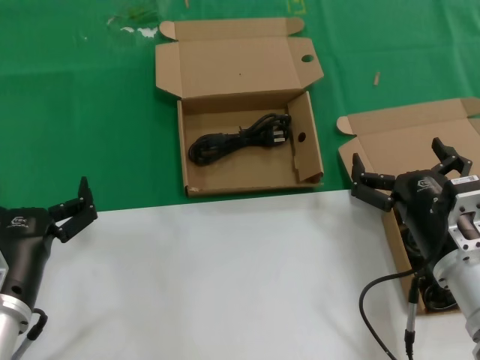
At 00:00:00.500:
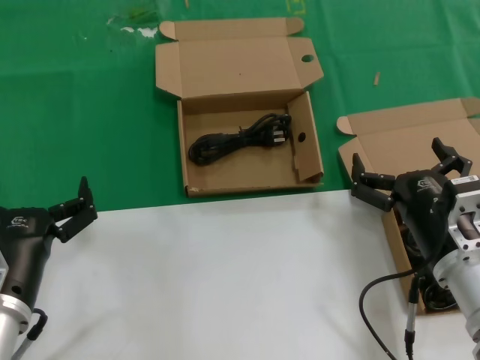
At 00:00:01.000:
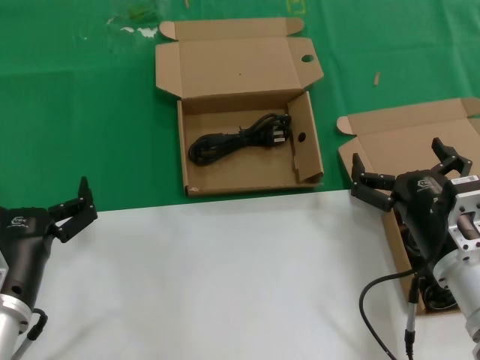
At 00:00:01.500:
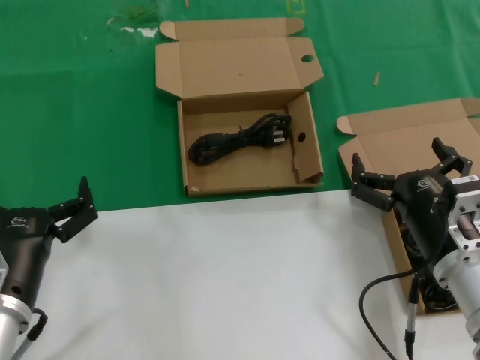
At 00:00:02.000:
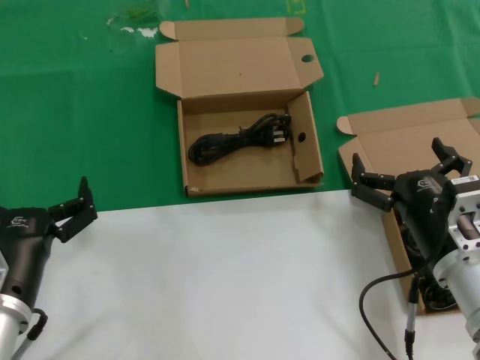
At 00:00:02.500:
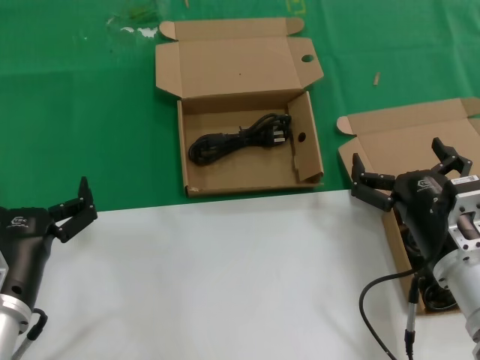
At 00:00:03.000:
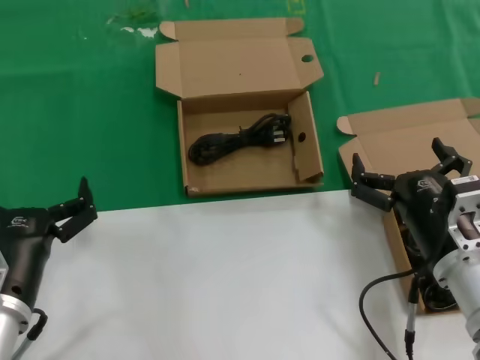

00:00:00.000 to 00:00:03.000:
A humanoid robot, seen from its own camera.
Task of the whole recording: take the parts from the box containing them and put them into an empty box.
00:00:00.000 to 00:00:03.000: The two hands keep their place.

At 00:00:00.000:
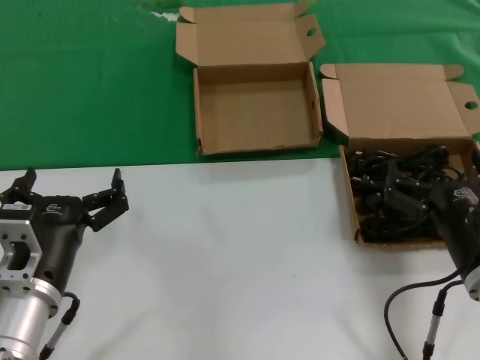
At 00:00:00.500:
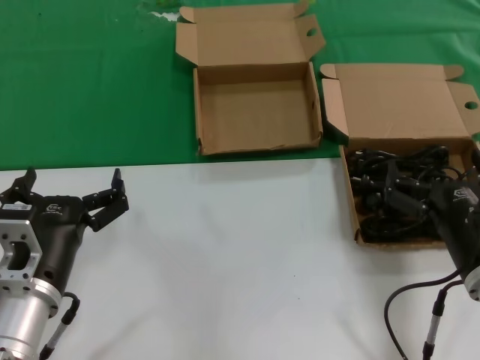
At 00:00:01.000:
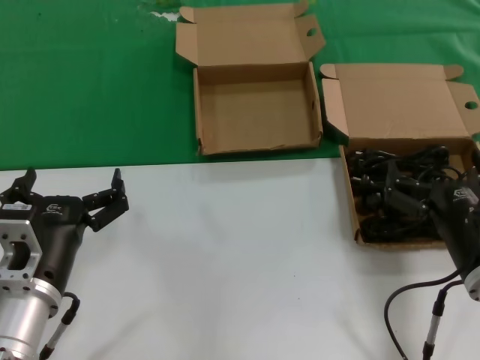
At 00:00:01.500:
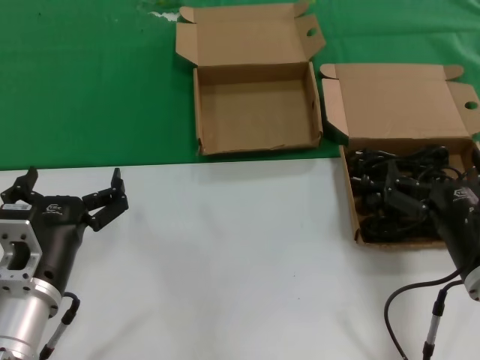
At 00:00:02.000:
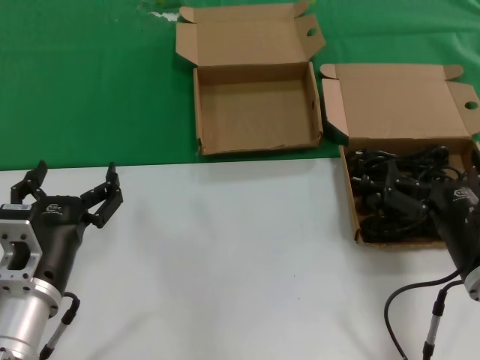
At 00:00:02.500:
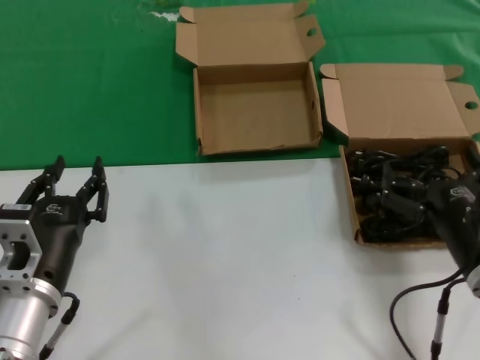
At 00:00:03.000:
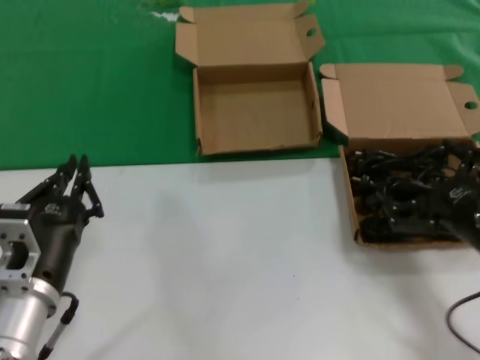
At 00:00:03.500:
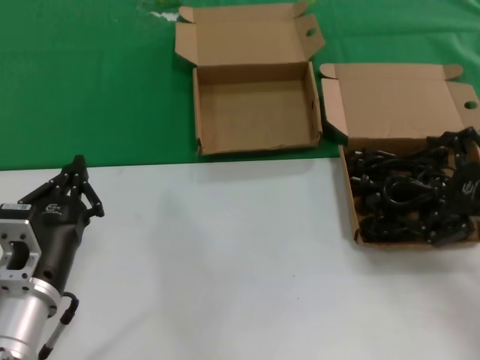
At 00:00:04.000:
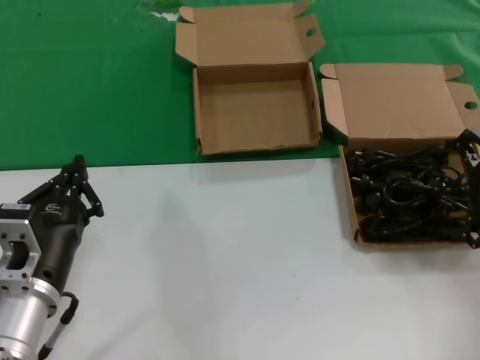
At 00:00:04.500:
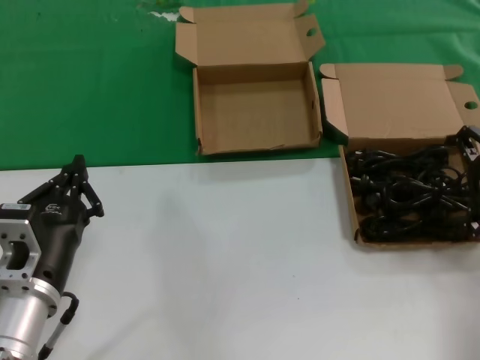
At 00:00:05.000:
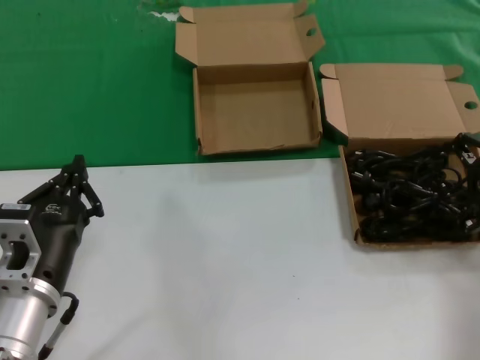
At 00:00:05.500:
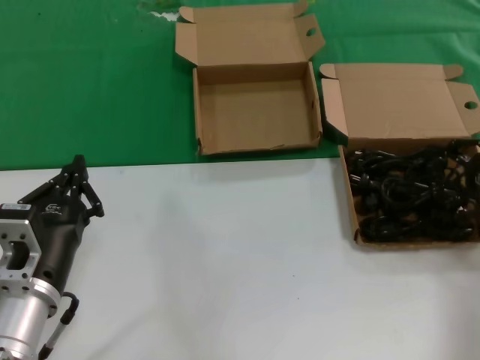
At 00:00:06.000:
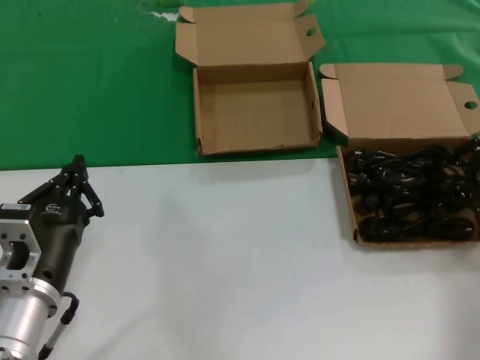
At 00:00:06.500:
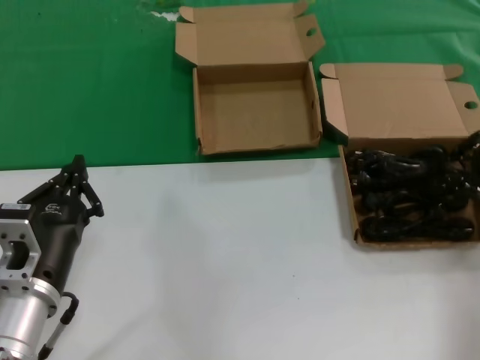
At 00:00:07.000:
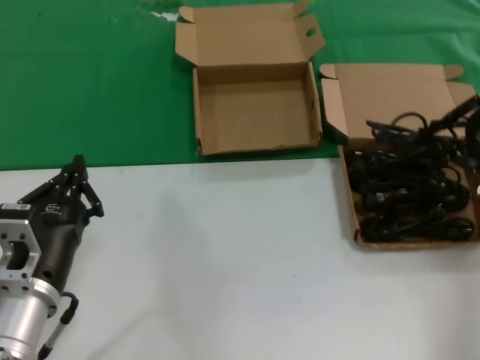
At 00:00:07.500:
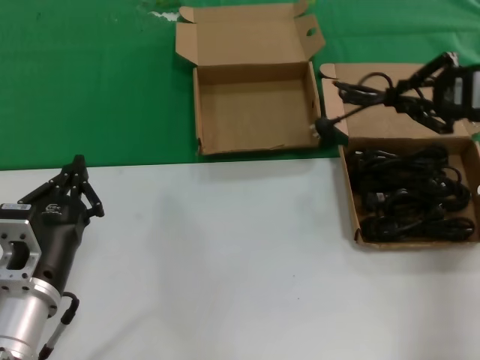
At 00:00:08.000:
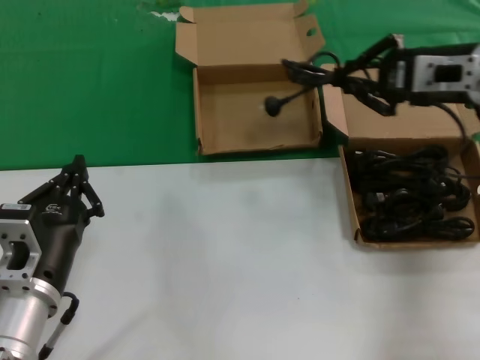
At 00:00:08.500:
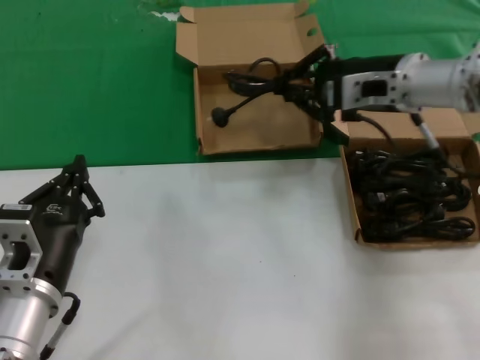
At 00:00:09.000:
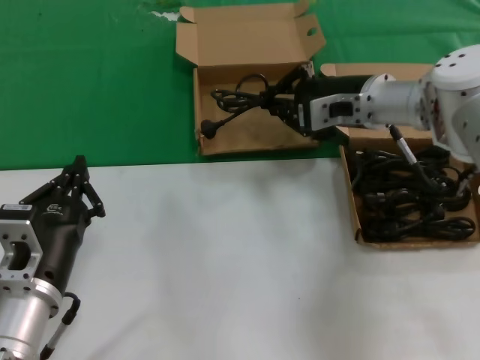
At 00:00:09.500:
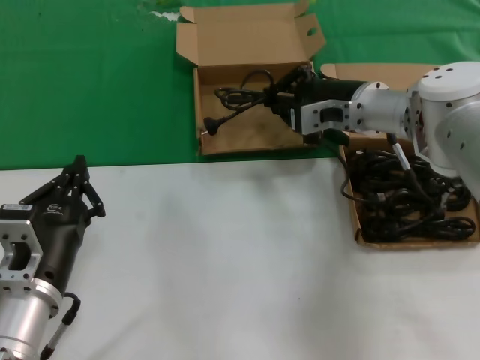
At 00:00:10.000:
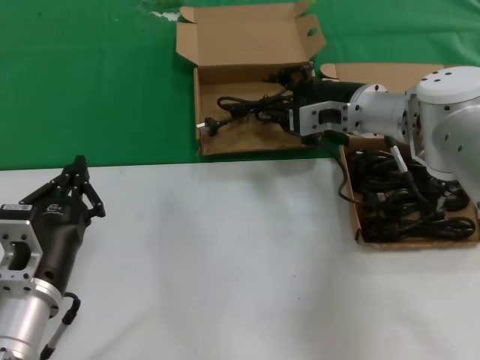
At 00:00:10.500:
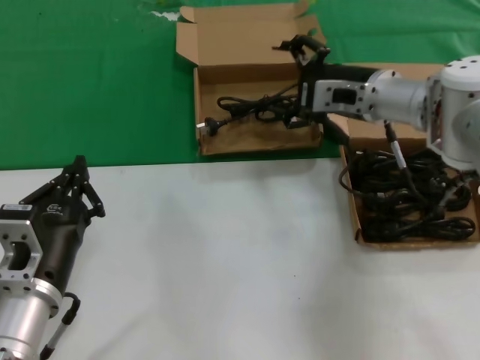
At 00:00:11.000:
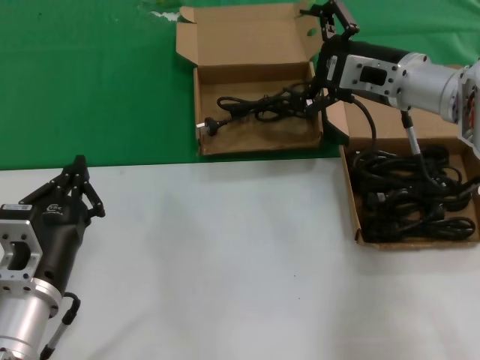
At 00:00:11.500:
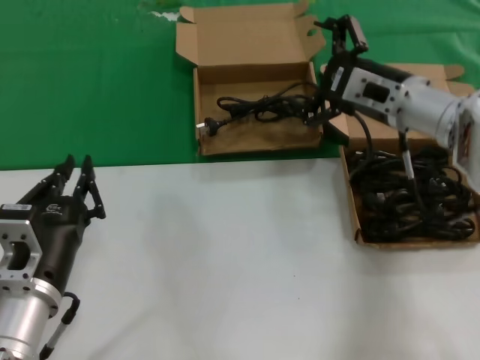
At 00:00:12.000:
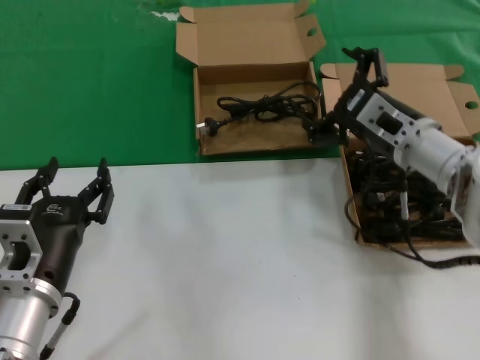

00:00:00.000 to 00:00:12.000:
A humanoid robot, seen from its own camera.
Task of the whole recording: take the parts from the box containing them and put them into an empty box.
Step, 00:00:00.000 to 00:00:05.500: Grasp the data cable.
Step, 00:00:06.000 to 00:00:09.500: Place the data cable in the another box.
00:00:00.000 to 00:00:02.000: Both hands stay put.
00:00:02.000 to 00:00:04.000: The right hand travels to the right, upward and forward by roughly 25 cm.
00:00:04.000 to 00:00:06.000: The right hand changes place by about 5 cm.
00:00:06.000 to 00:00:08.000: The right hand heads to the left, upward and forward, covering approximately 15 cm.
00:00:08.000 to 00:00:10.000: The right hand moves to the left, downward and forward, roughly 15 cm.
00:00:10.000 to 00:00:12.000: The right hand is displaced backward by some 5 cm.

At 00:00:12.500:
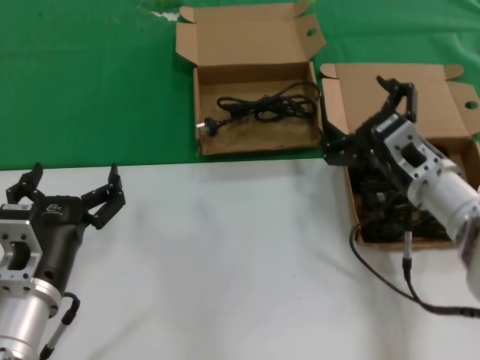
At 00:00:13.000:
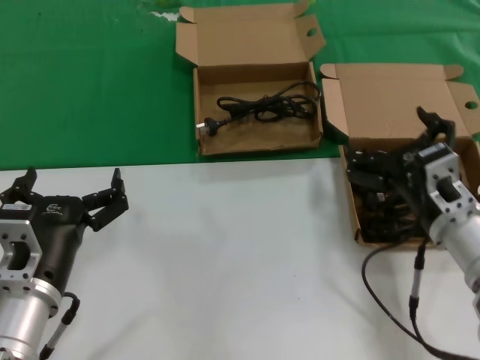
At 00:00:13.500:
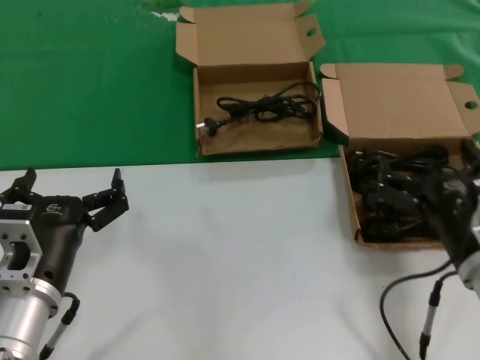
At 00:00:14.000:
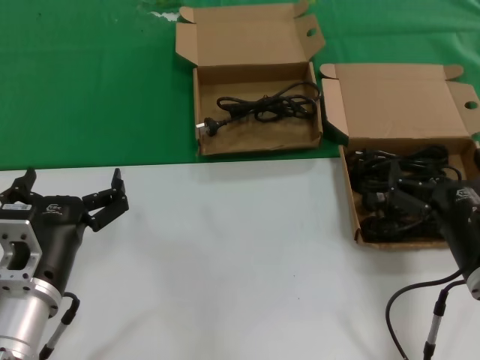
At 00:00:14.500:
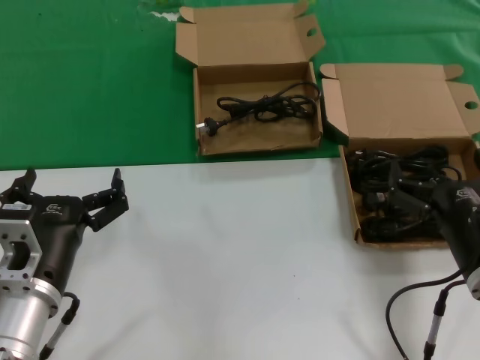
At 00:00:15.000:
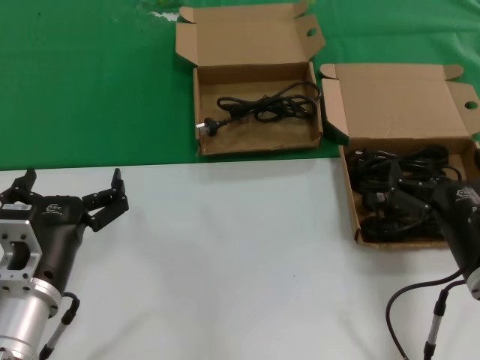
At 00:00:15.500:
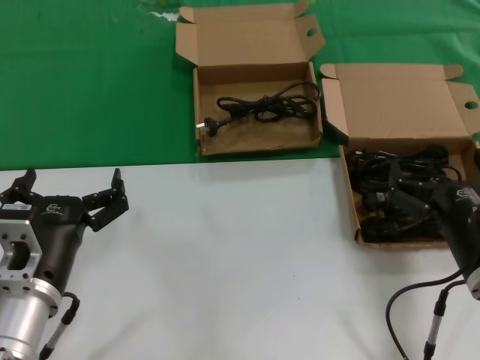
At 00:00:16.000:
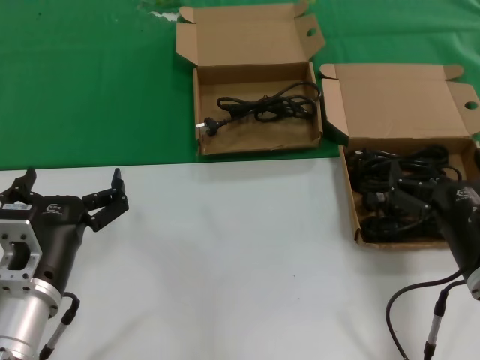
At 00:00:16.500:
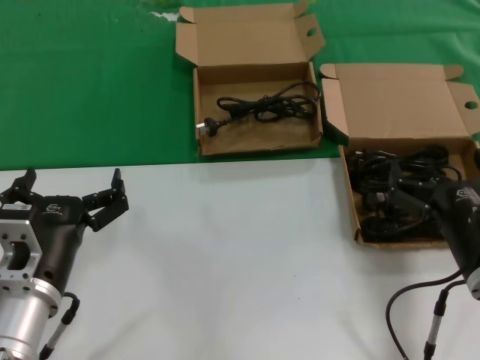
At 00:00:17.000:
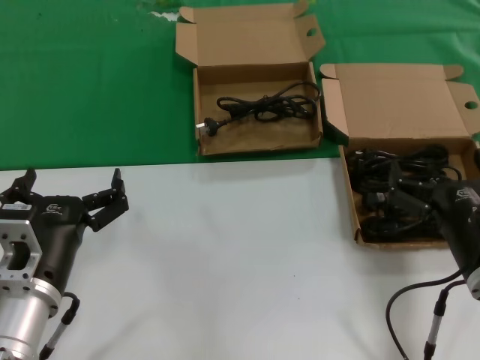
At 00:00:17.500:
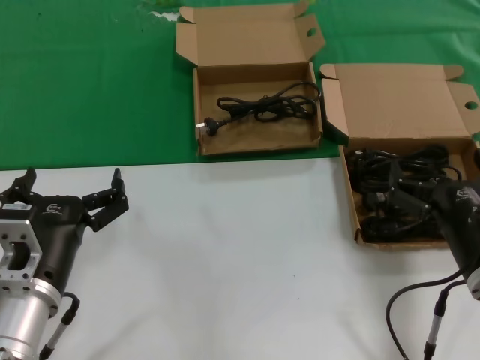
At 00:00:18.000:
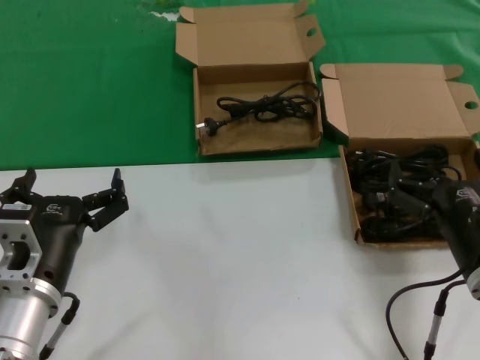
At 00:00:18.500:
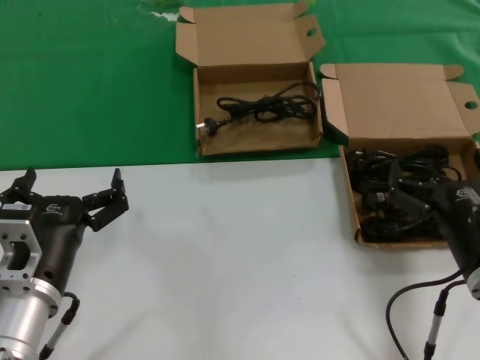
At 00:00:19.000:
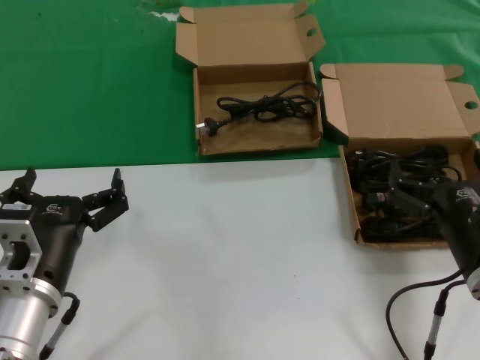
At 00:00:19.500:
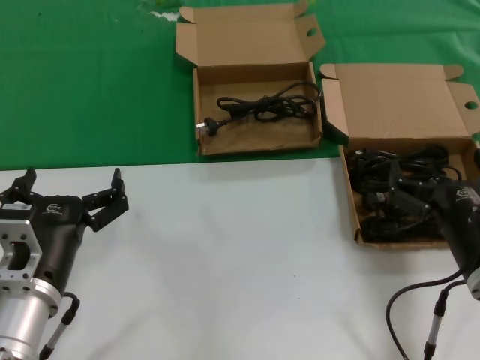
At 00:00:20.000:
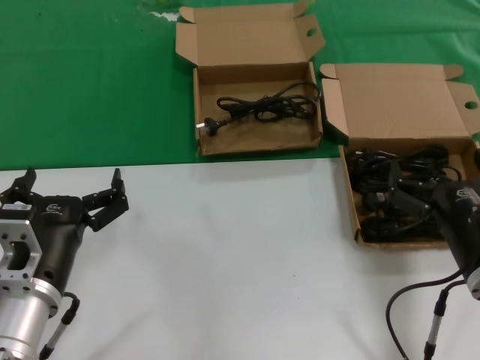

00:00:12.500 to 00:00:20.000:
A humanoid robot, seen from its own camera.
Task of the whole recording: take the parts from the box containing them and put them into an empty box.
00:00:12.500 to 00:00:14.500: The right hand goes about 15 cm backward.
00:00:14.500 to 00:00:20.000: Both hands stay put.
